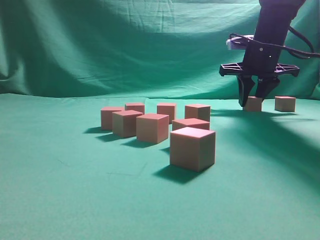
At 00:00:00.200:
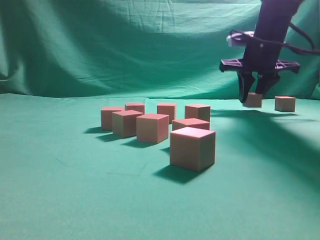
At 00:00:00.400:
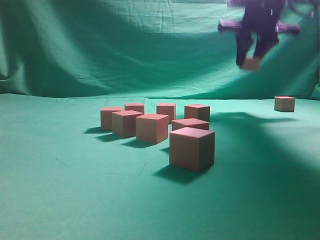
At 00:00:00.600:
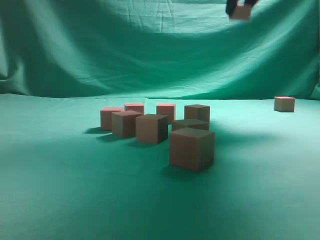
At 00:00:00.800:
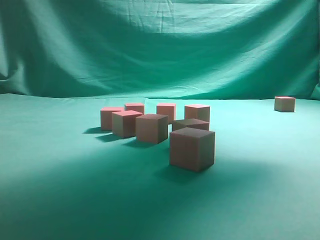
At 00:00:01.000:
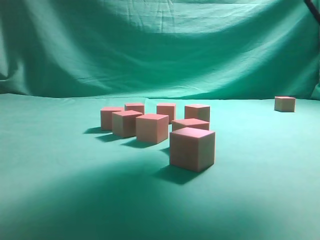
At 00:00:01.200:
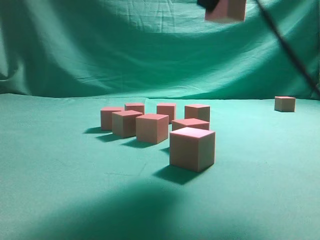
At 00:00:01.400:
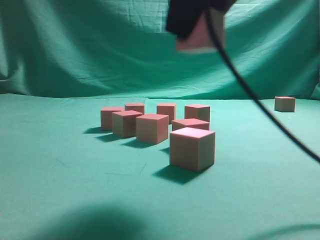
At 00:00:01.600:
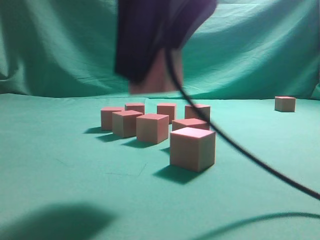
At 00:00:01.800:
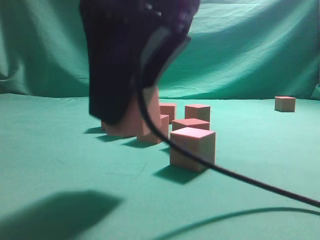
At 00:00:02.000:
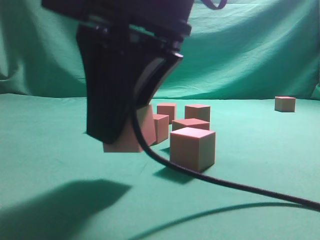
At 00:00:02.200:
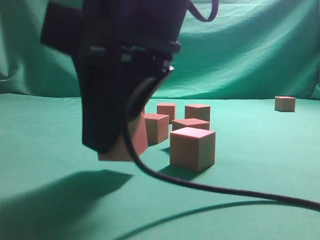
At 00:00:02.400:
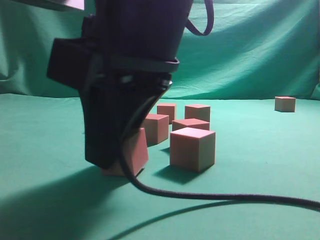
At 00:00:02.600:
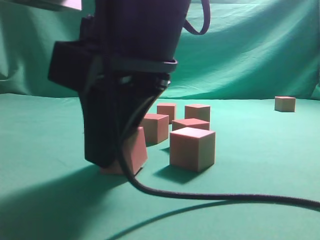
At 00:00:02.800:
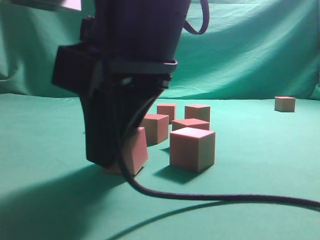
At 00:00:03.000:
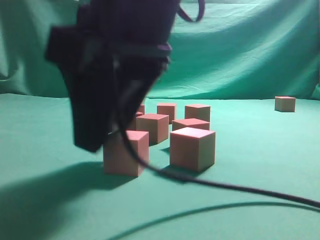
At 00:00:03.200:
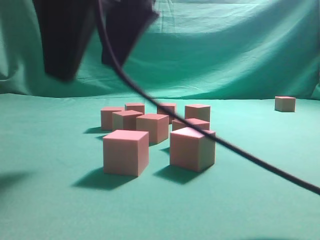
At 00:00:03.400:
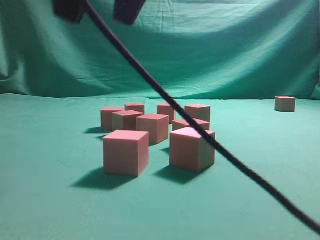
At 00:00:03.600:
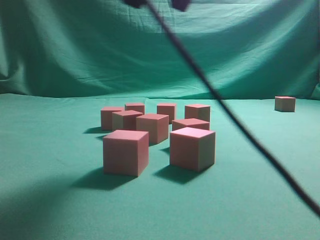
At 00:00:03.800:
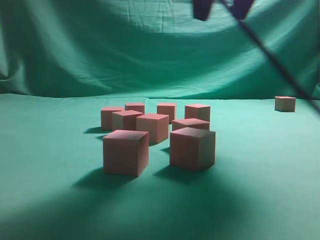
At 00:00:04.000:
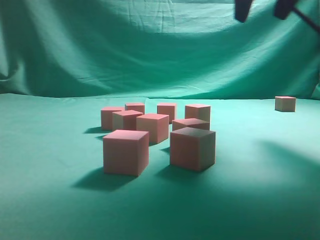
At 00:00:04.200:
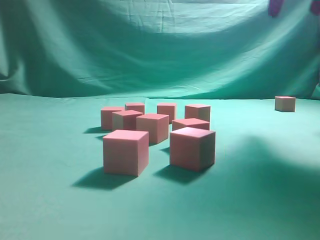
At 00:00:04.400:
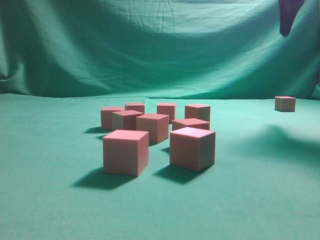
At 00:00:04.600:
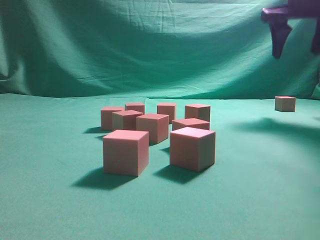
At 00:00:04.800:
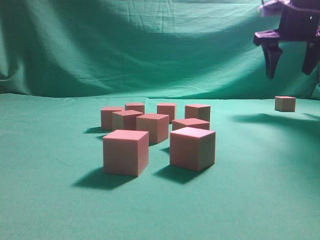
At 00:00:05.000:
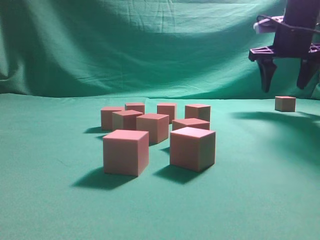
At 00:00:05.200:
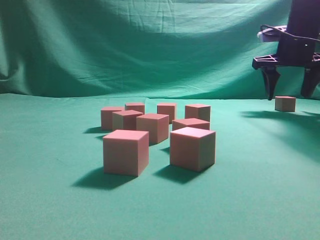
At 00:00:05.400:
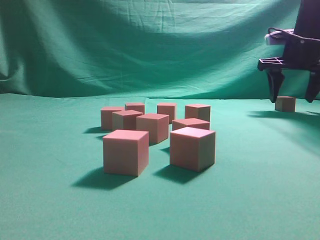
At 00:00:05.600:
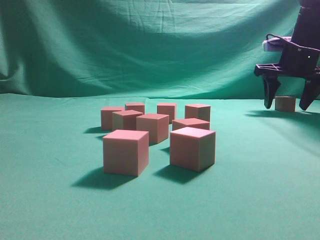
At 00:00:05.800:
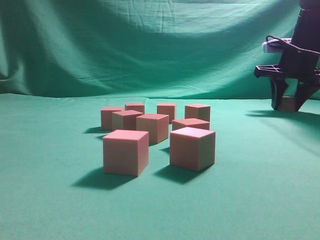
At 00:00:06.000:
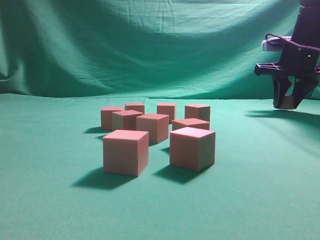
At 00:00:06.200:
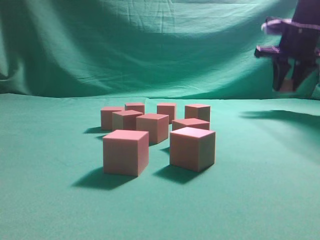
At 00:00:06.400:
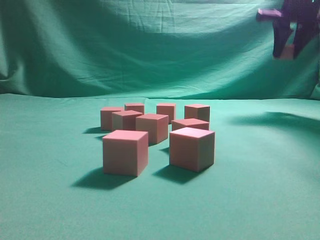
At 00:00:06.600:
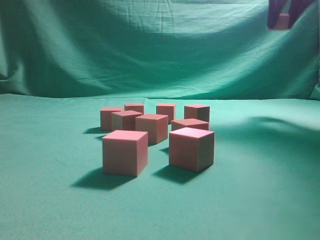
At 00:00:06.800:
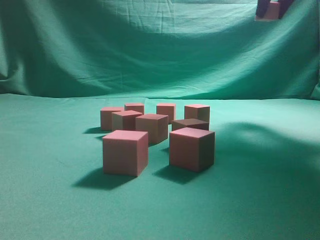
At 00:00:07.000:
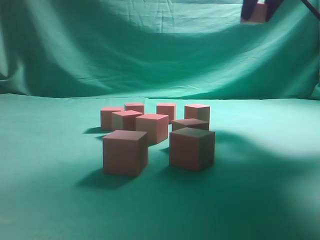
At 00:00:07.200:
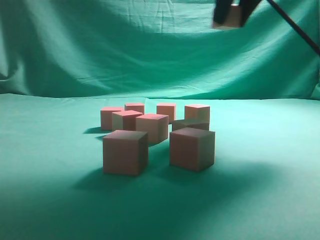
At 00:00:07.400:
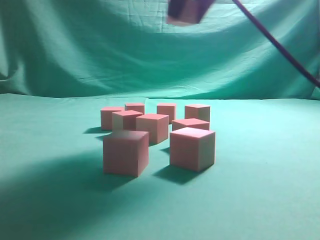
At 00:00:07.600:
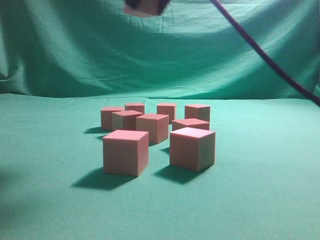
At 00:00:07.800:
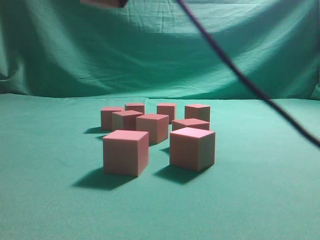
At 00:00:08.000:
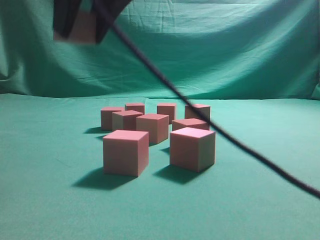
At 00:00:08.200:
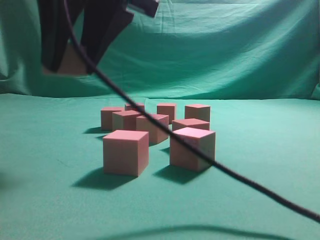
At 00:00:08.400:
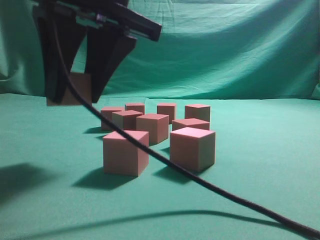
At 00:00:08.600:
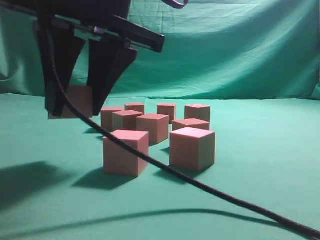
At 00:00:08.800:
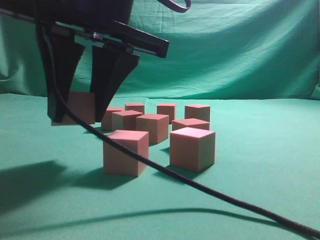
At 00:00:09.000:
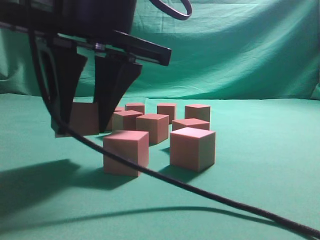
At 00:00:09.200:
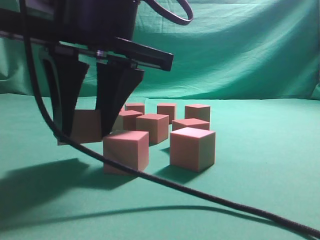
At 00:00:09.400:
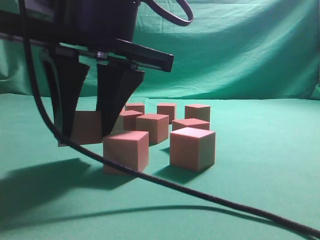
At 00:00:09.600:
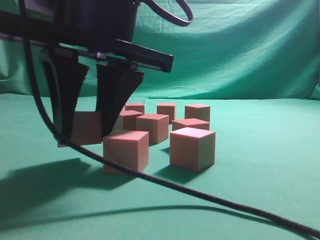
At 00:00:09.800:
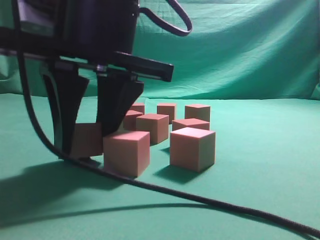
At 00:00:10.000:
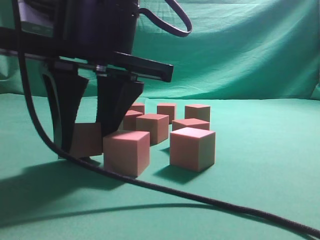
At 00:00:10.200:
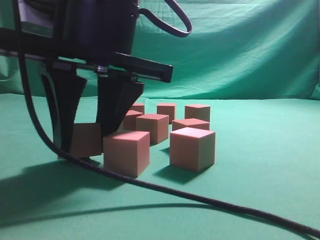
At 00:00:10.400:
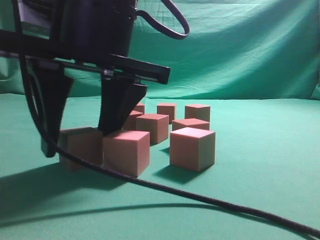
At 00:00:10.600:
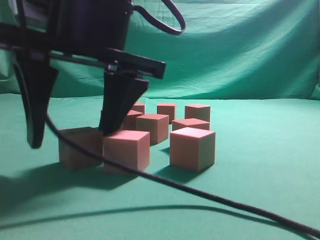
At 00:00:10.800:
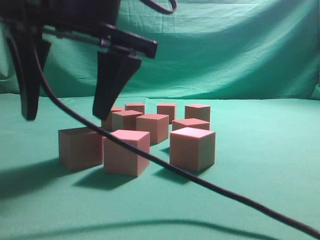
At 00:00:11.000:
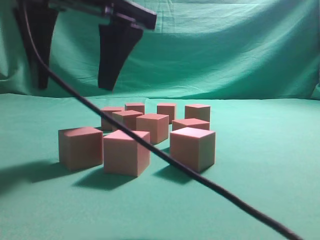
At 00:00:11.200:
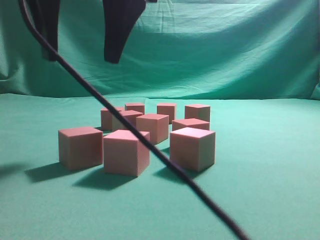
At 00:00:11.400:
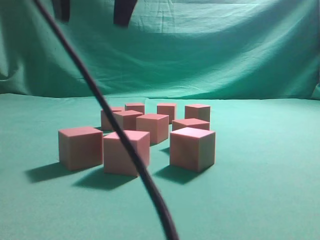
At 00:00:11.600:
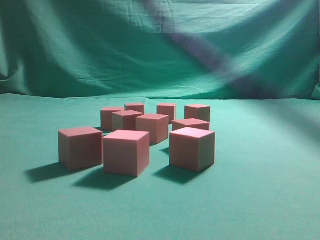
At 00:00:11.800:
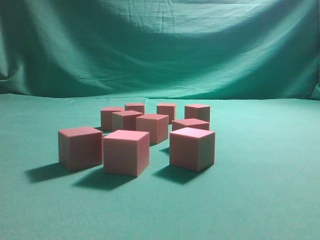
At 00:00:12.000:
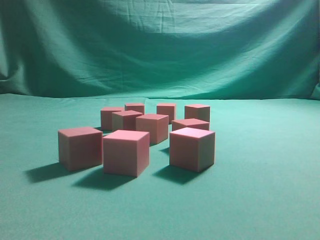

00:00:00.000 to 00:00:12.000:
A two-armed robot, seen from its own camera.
Task of the whole recording: pick up the multiple cubes in two columns one by one and place them in another position on the table.
Step, 00:00:00.400 to 00:00:03.000: Place the block at the correct position to assemble the letter S.
Step, 00:00:03.200 to 00:00:06.000: Pick up the block on the table.
Step, 00:00:06.200 to 00:00:11.000: Place the block at the correct position to assemble the letter S.
00:00:00.000 to 00:00:01.600: The right gripper heads backward and to the left, covering approximately 35 cm.
00:00:01.600 to 00:00:03.000: The right gripper heads downward, covering approximately 5 cm.
00:00:03.000 to 00:00:04.400: The right gripper shifts approximately 35 cm to the right, forward and upward.
00:00:04.400 to 00:00:06.000: The right gripper moves downward and forward, some 15 cm, and closes.
00:00:06.000 to 00:00:07.600: The right gripper moves backward, to the left and upward, roughly 35 cm.
00:00:07.600 to 00:00:09.000: The right gripper is displaced downward and to the left by some 15 cm.
00:00:10.400 to 00:00:12.000: The right gripper goes roughly 30 cm upward and to the right, and closes.
